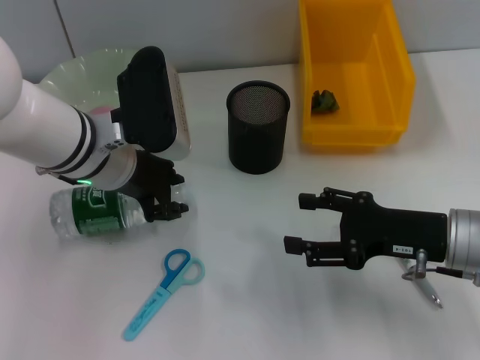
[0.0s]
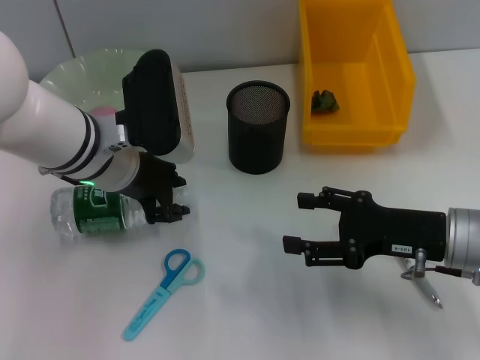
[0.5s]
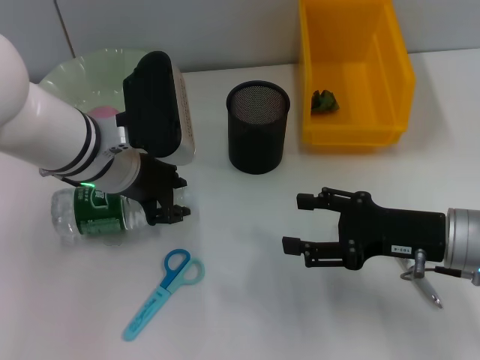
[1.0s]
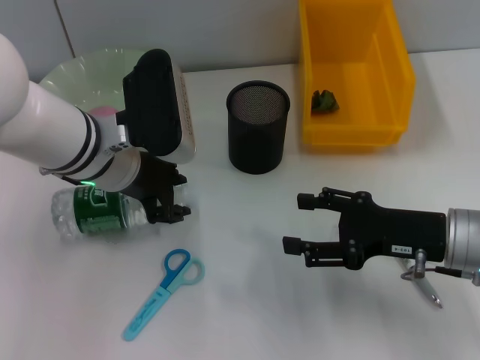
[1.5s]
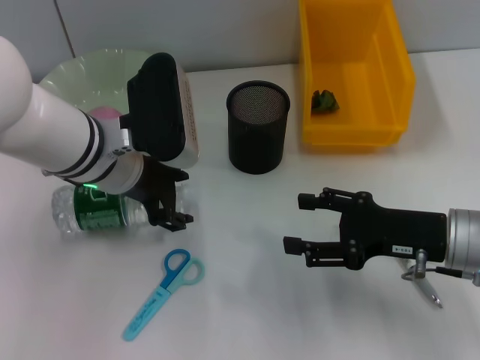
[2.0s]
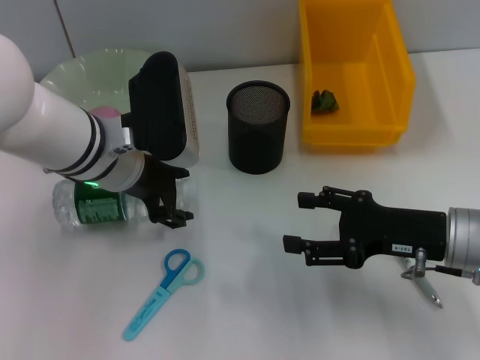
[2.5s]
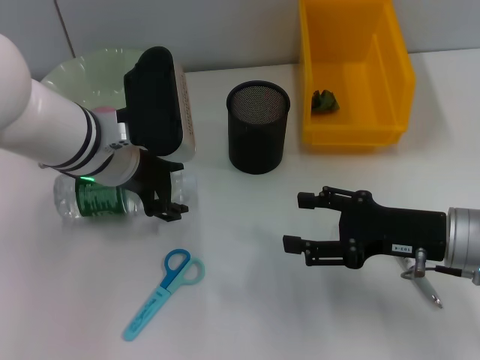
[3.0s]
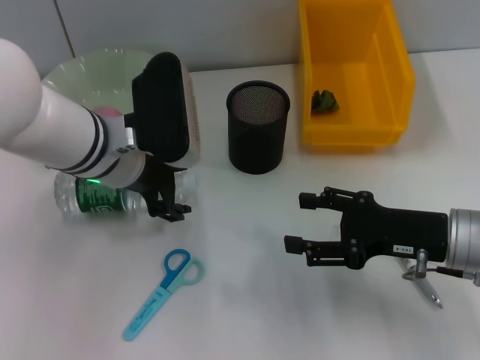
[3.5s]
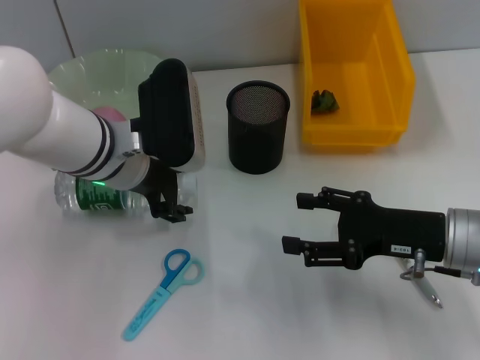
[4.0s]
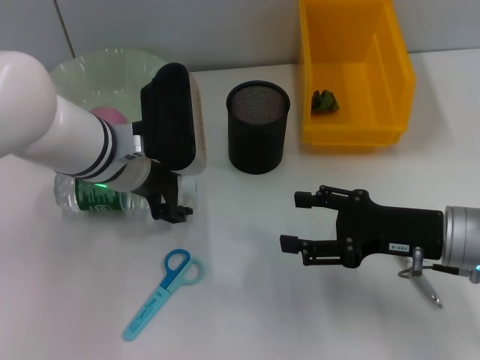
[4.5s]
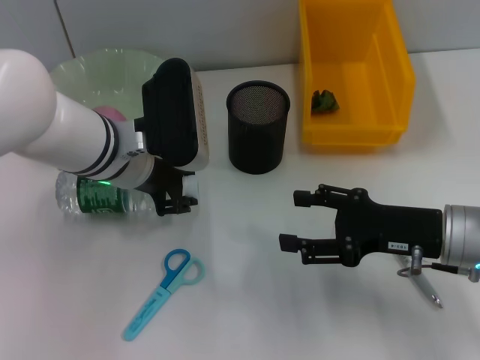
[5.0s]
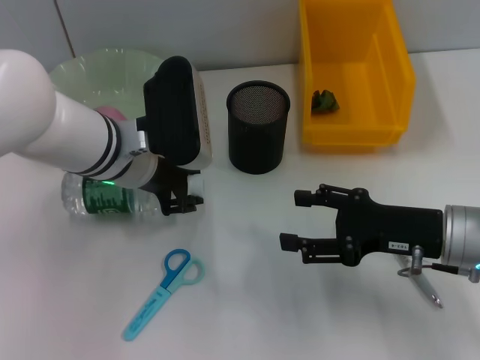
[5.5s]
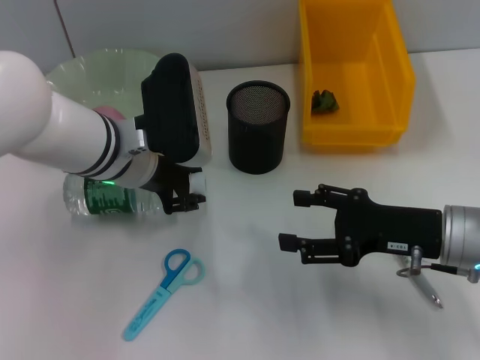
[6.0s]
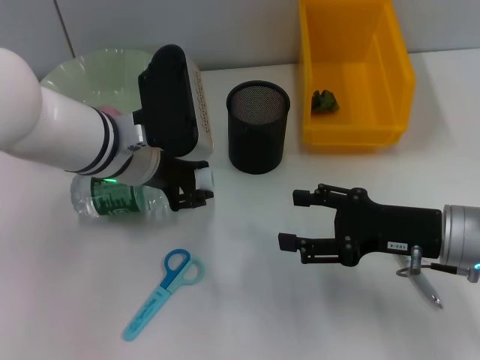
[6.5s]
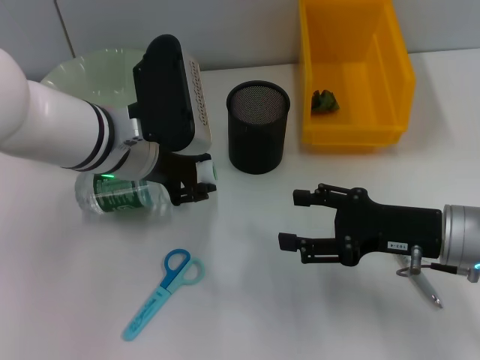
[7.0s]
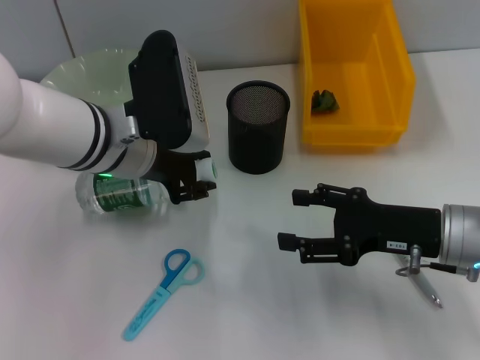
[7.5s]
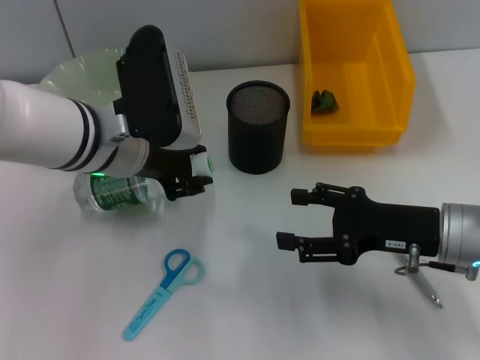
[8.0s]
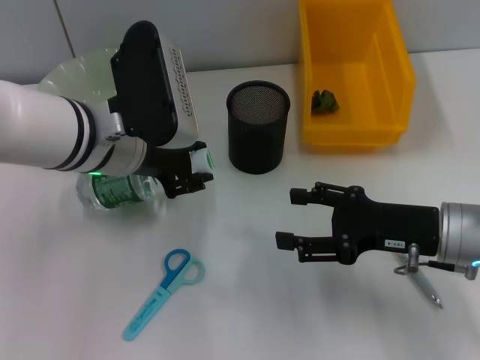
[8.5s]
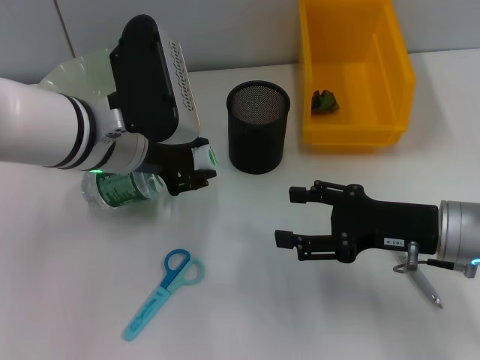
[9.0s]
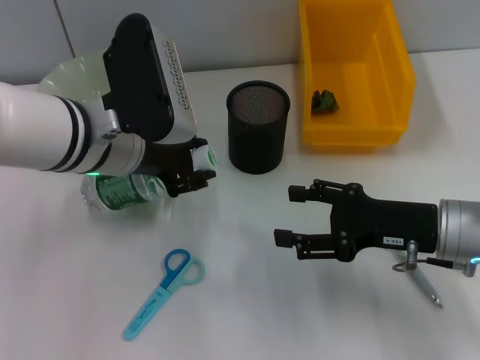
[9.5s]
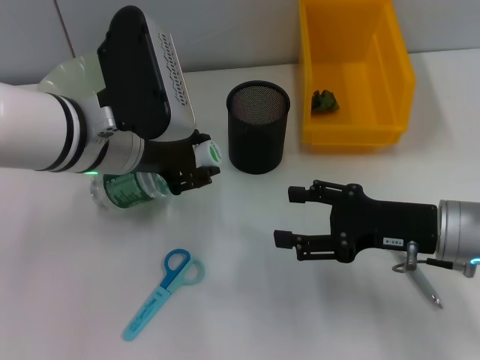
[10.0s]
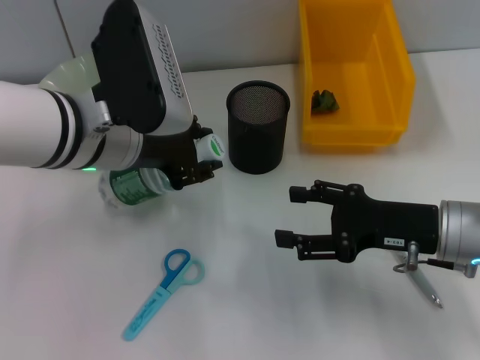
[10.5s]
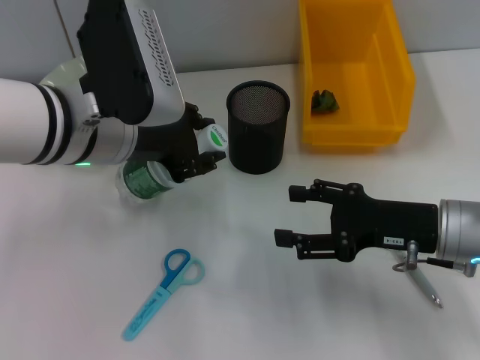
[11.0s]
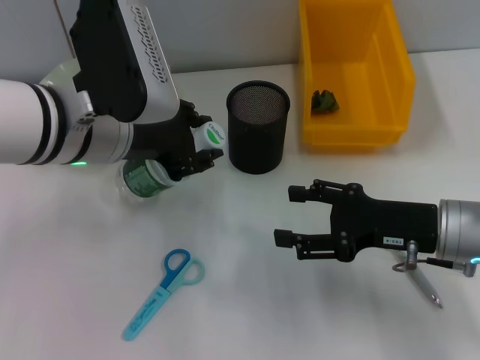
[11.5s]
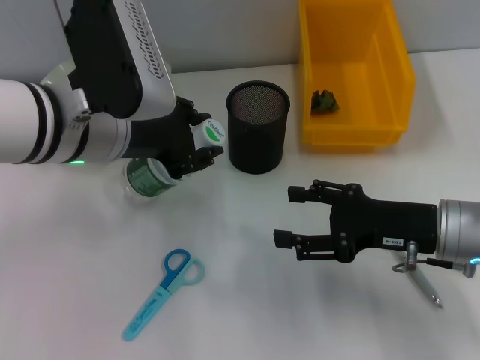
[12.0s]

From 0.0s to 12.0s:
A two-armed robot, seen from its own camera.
Step, from 0.0s to 5.5s: Grab the water bottle with the left hand.
From 0.0s to 2.0s: Both grippers stay put.
From 2.0s to 4.0s: Both grippers stay about where they are.
From 4.0s to 6.0s: The left gripper closes up.
From 6.0s to 10.0s: There are only small adjustments of the grippers.
From 10.0s to 12.0s: The grippers move only a little.

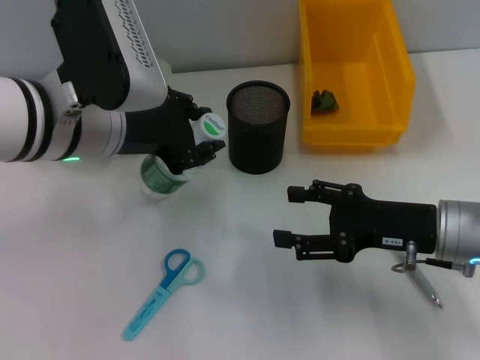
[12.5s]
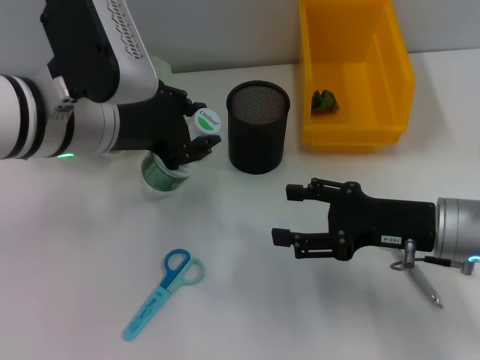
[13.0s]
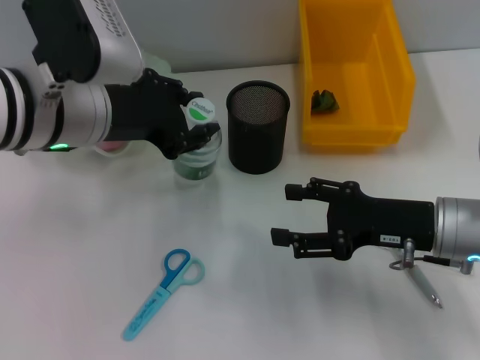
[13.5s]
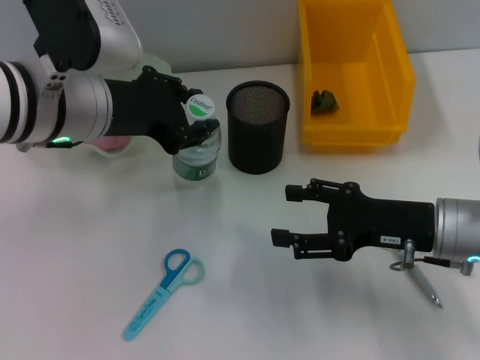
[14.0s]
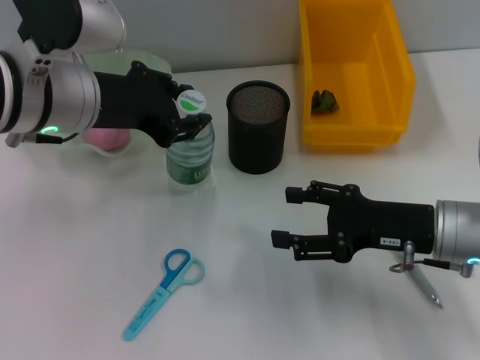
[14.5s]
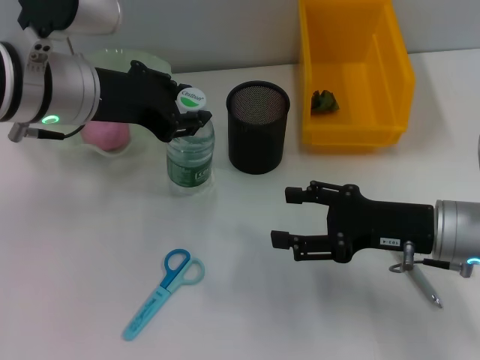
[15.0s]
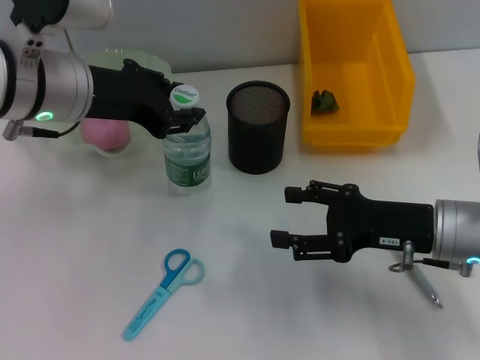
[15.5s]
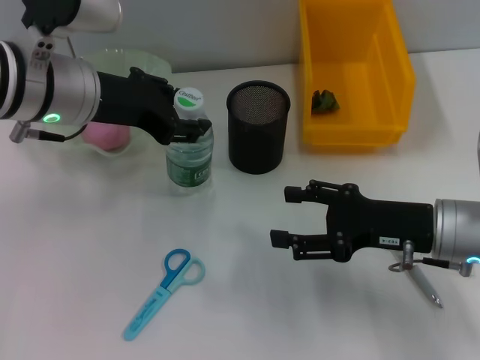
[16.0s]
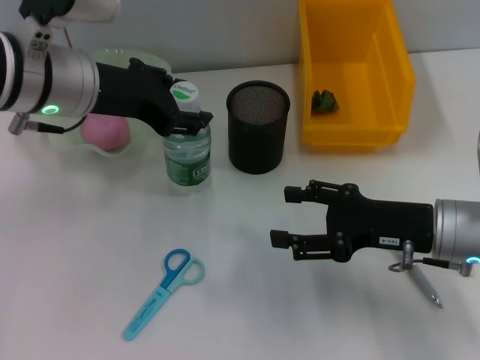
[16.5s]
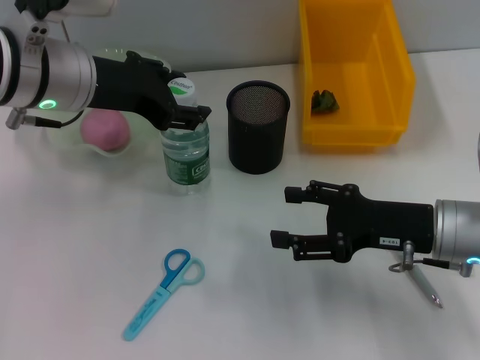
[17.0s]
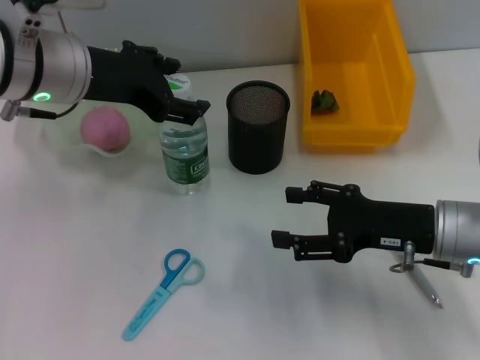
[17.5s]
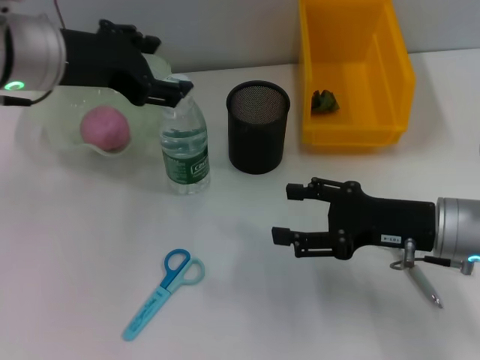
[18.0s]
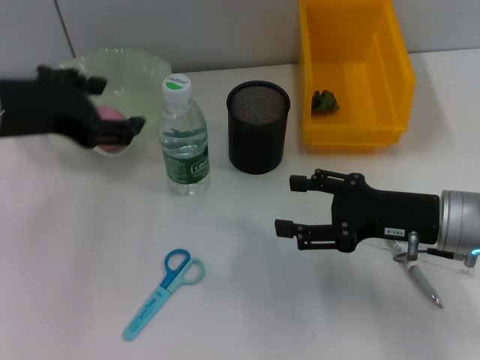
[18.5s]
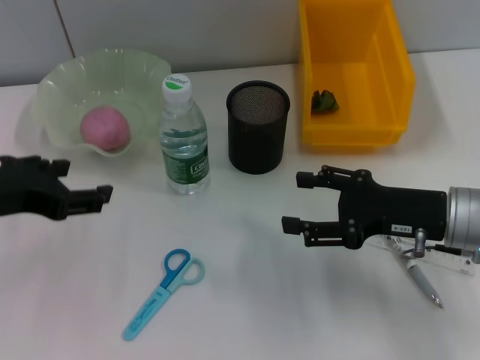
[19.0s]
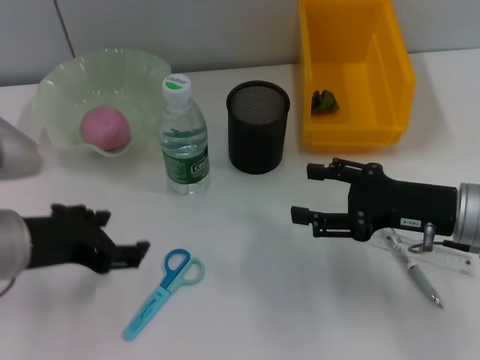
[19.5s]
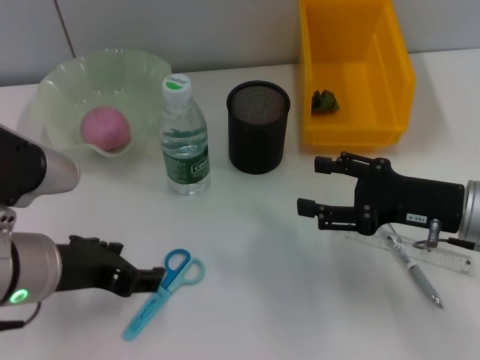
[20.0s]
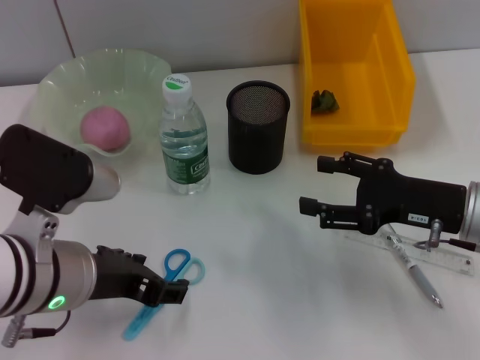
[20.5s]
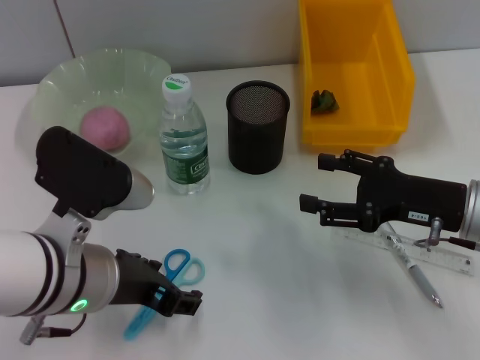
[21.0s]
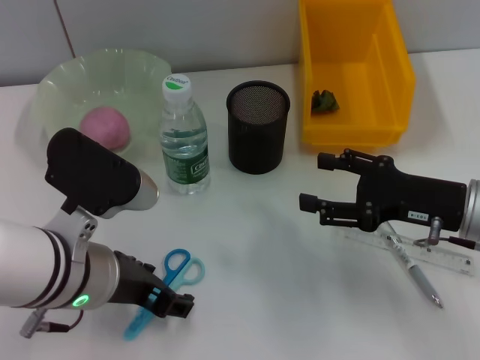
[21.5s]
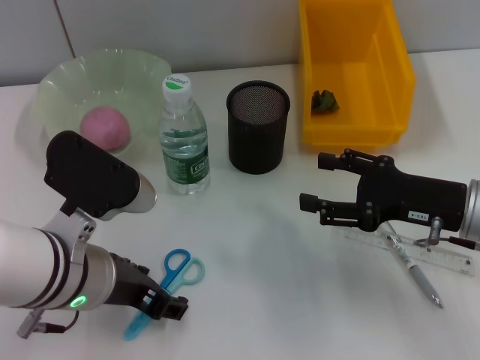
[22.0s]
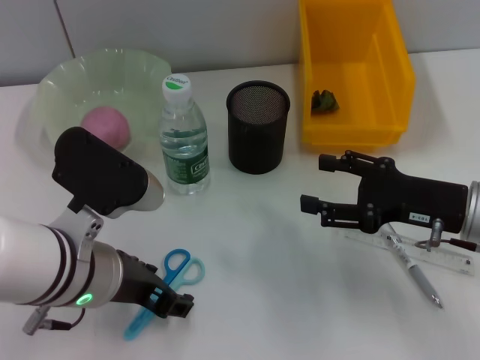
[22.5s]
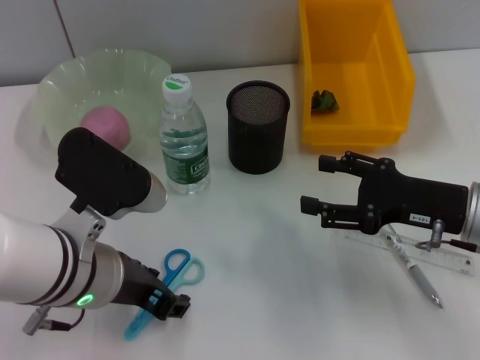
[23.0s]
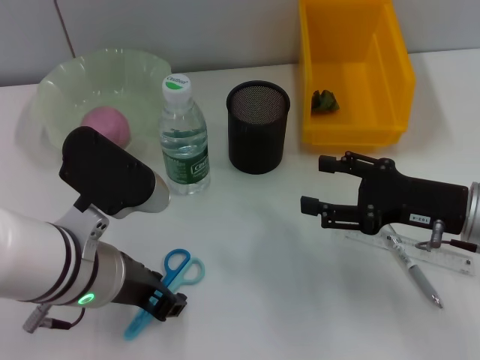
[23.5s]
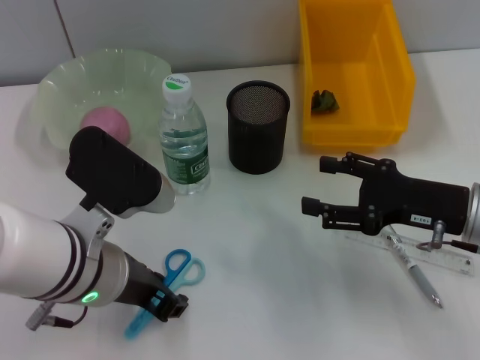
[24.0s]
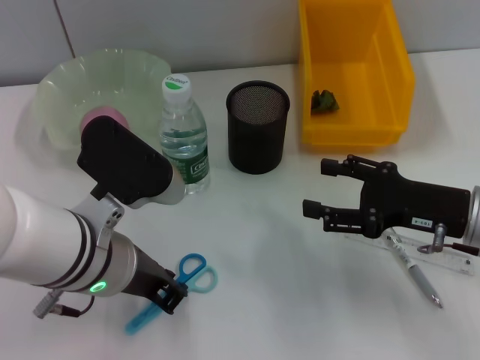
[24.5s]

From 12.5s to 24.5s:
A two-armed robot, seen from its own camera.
Step, from 12.5s to 18.0s: Place the water bottle on the table with the left hand.
From 12.5s to 16.5s: There are only small adjustments of the grippers.
From 16.5s to 18.5s: The left gripper is displaced to the left and backward by about 10 cm.
From 18.5s to 20.5s: The left gripper travels downward, backward and to the right by roughly 15 cm.
From 20.5s to 22.5s: The grippers make only small movements.
From 22.5s to 24.5s: The left gripper closes.

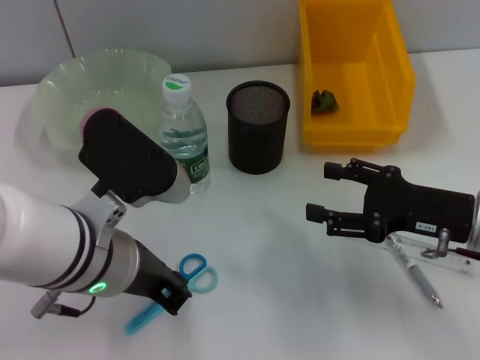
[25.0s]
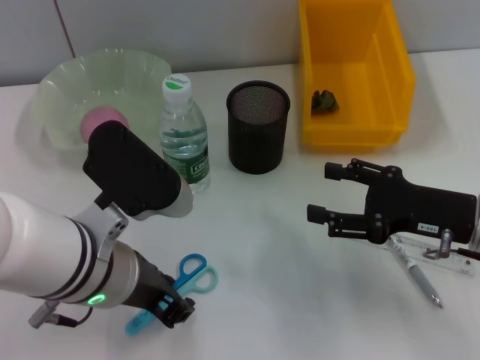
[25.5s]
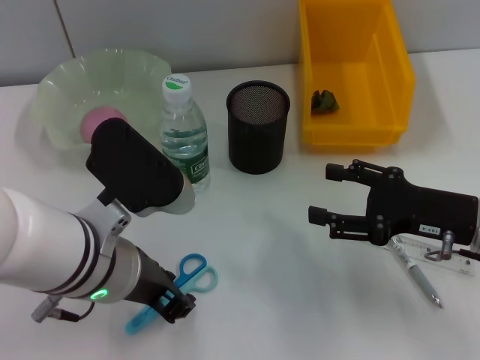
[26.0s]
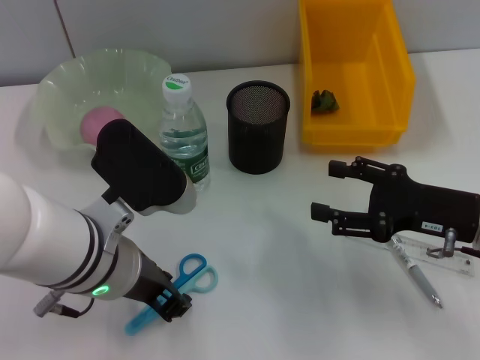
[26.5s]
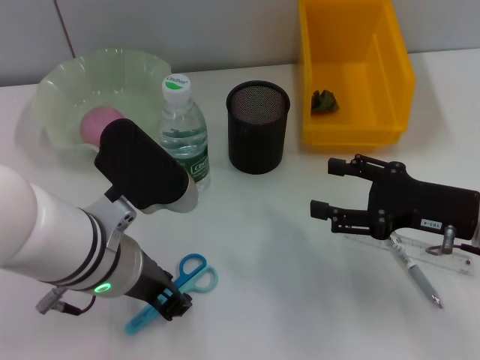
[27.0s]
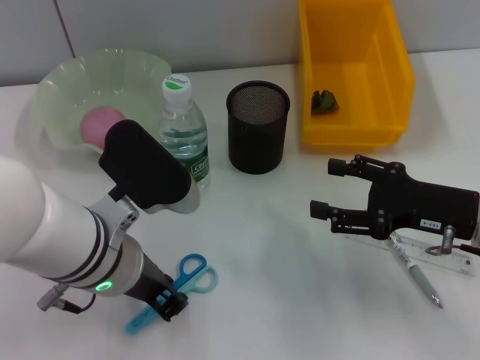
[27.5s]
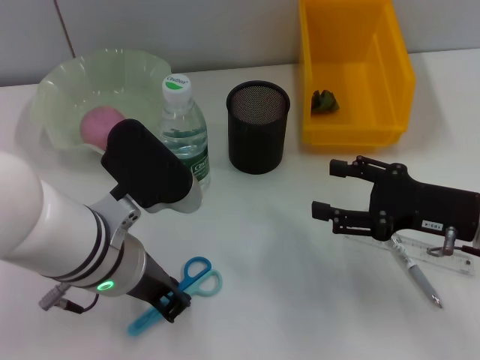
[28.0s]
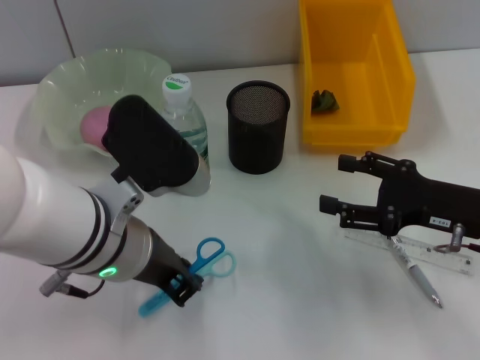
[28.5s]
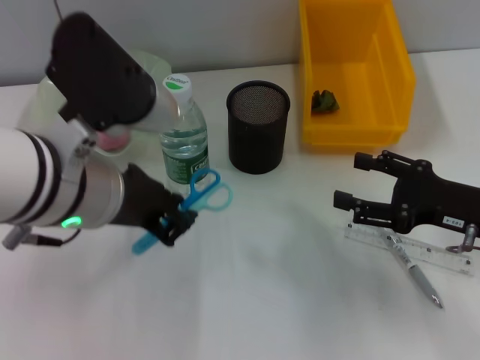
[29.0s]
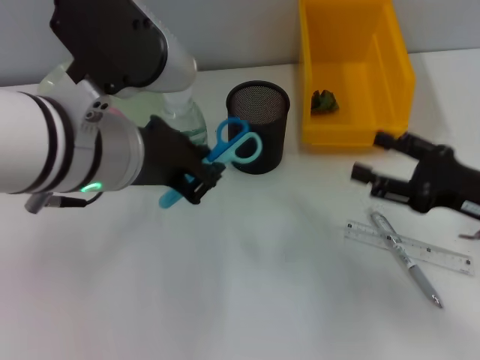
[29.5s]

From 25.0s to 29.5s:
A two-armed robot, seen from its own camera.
Step, from 25.0s to 27.5s: Grab the blue scissors with the left hand.
From 25.0s to 27.0s: The grippers make only small movements.
From 27.0s to 29.5s: The left gripper shifts approximately 10 cm upward.
